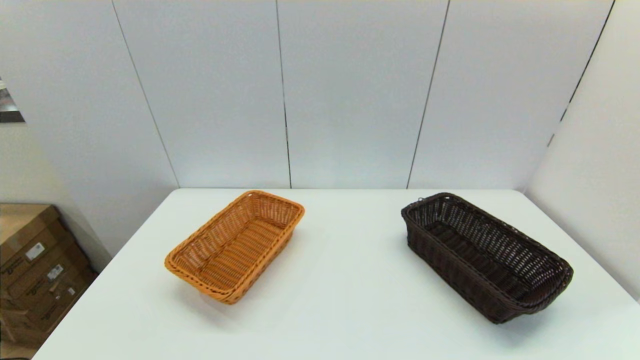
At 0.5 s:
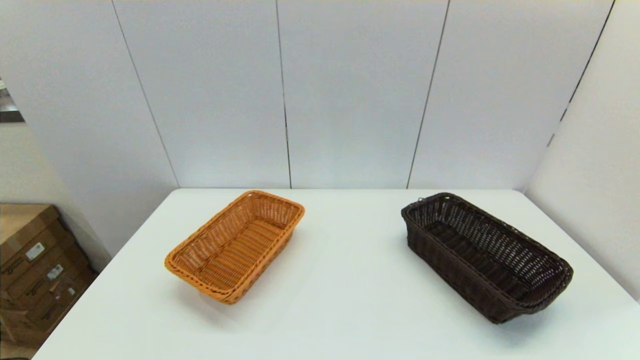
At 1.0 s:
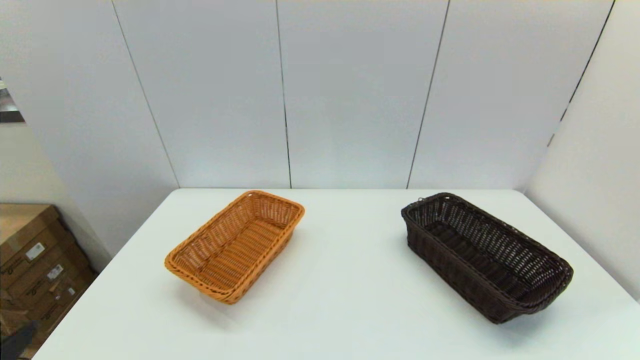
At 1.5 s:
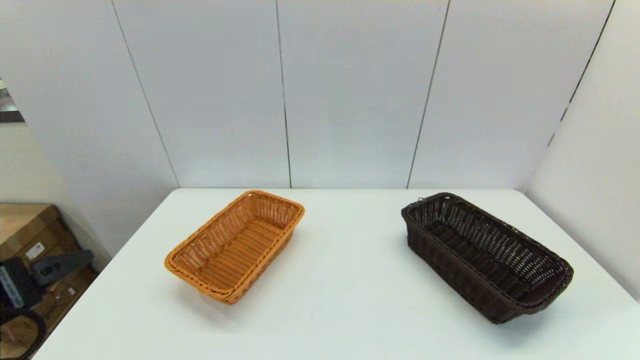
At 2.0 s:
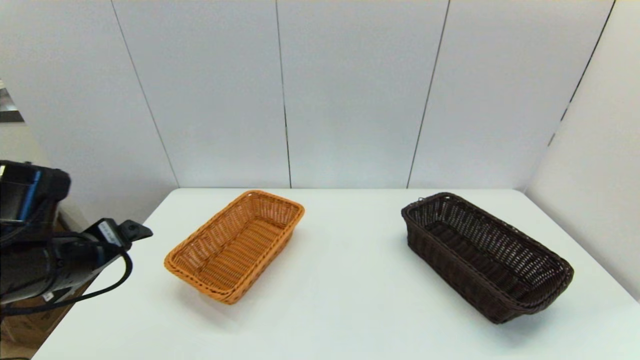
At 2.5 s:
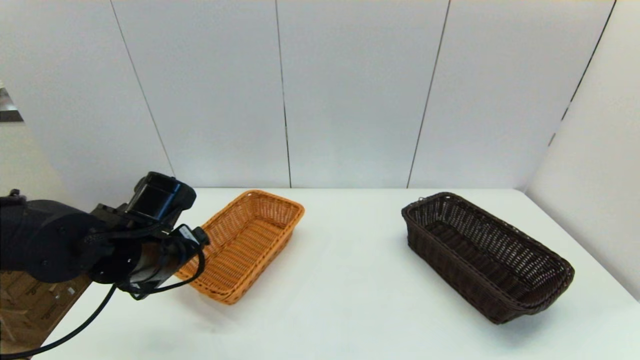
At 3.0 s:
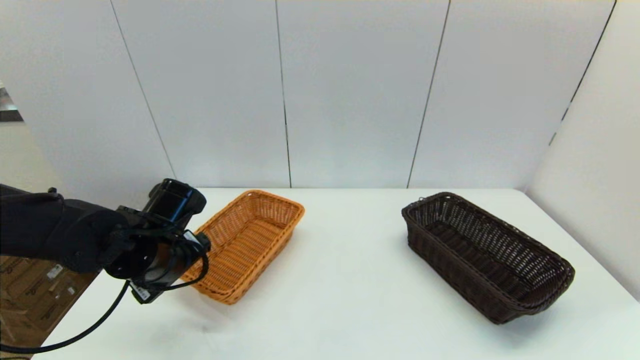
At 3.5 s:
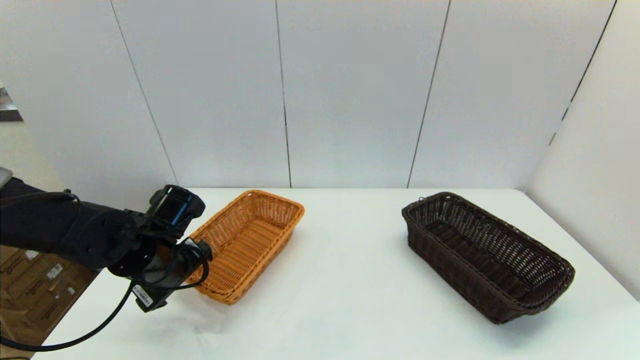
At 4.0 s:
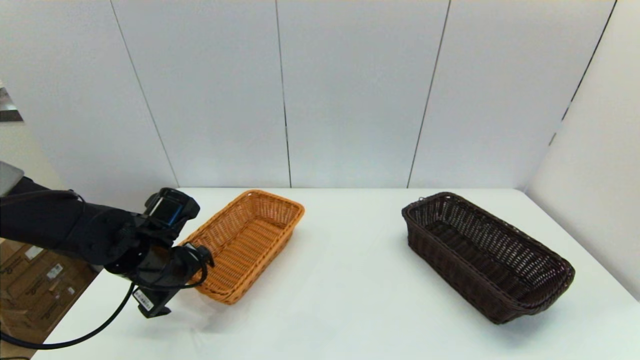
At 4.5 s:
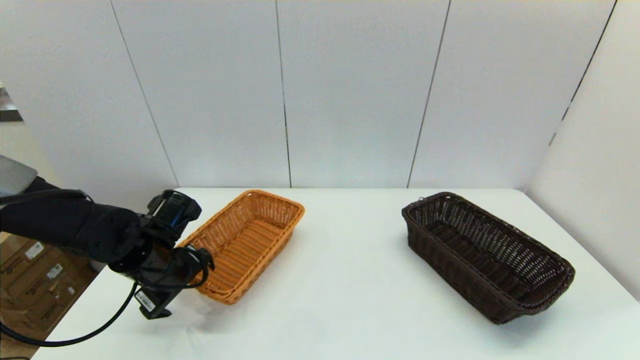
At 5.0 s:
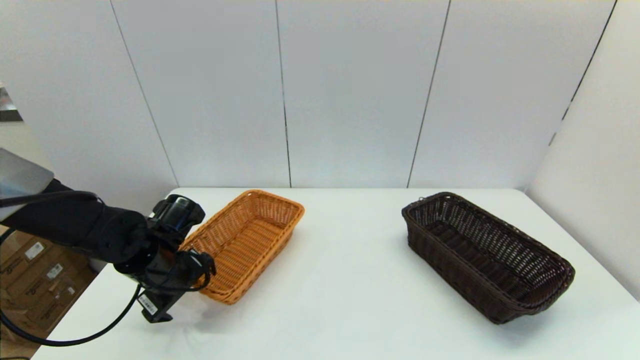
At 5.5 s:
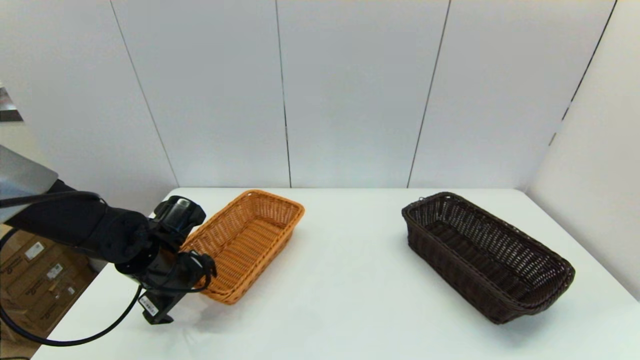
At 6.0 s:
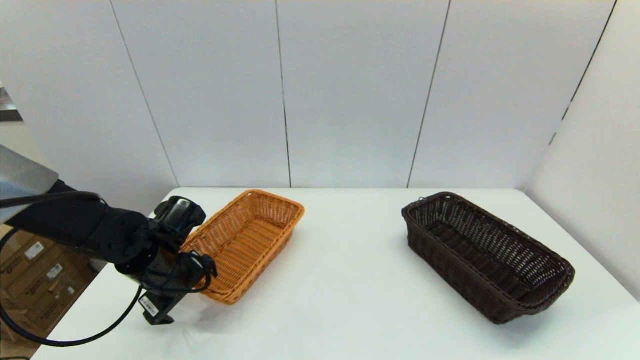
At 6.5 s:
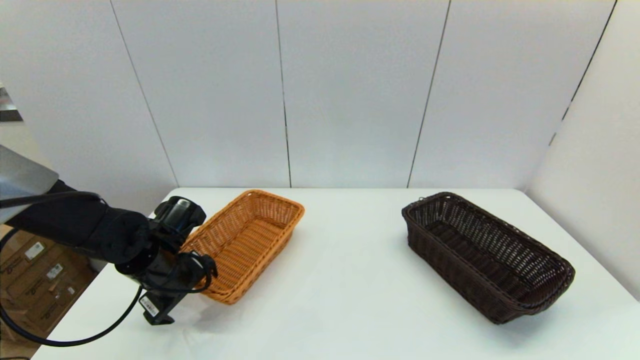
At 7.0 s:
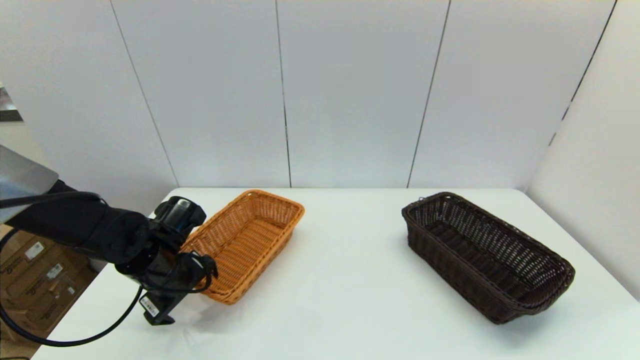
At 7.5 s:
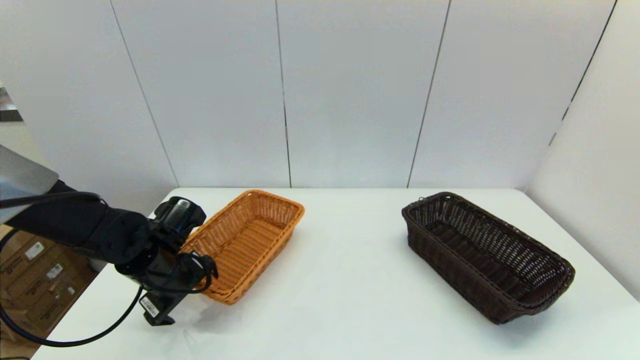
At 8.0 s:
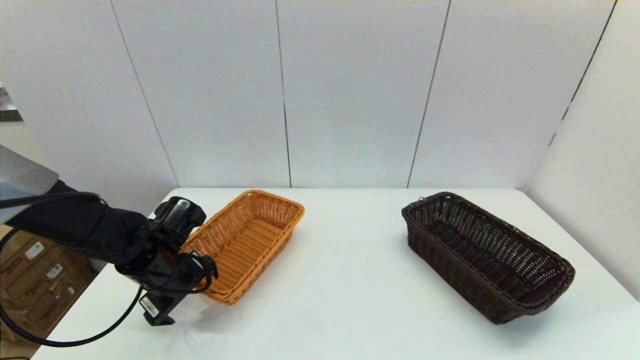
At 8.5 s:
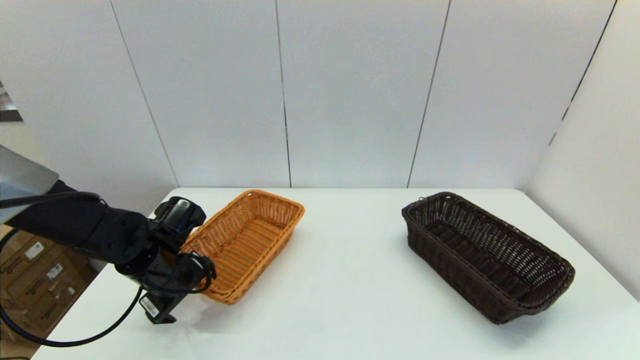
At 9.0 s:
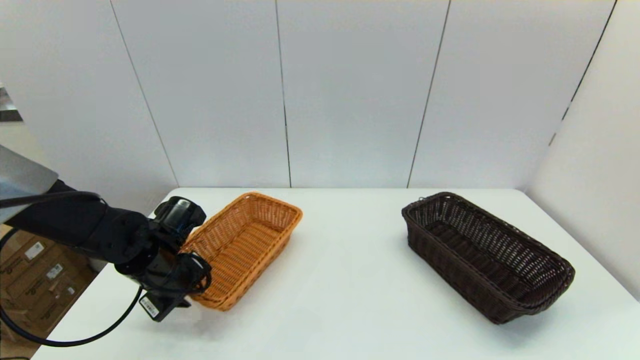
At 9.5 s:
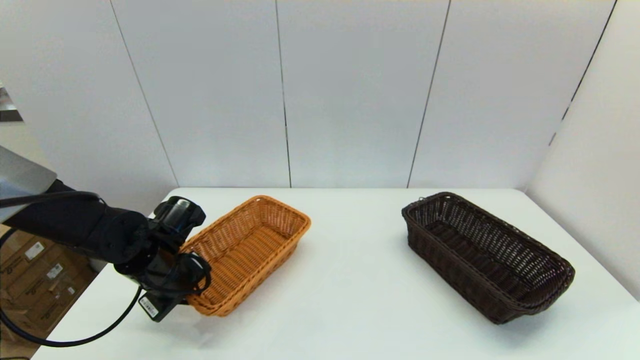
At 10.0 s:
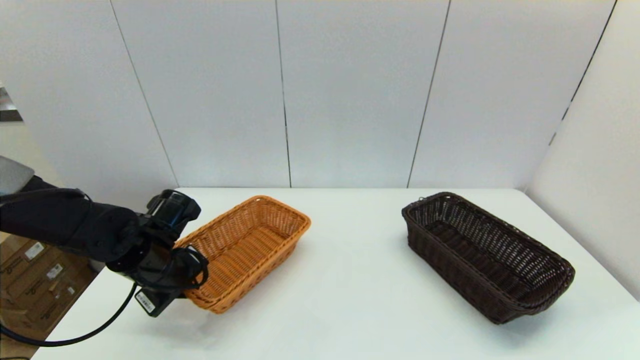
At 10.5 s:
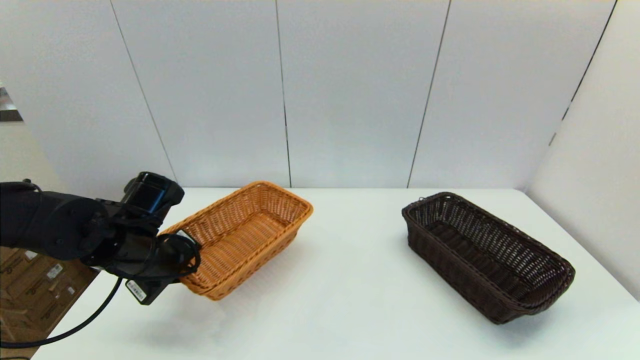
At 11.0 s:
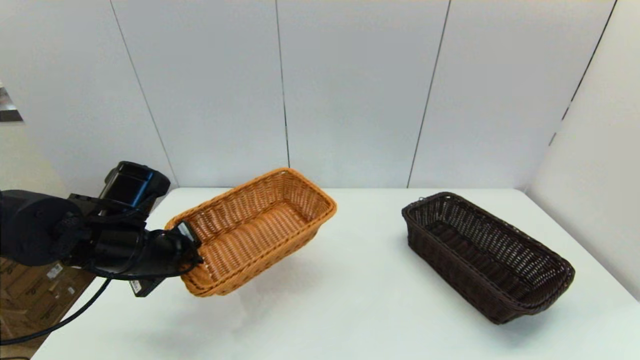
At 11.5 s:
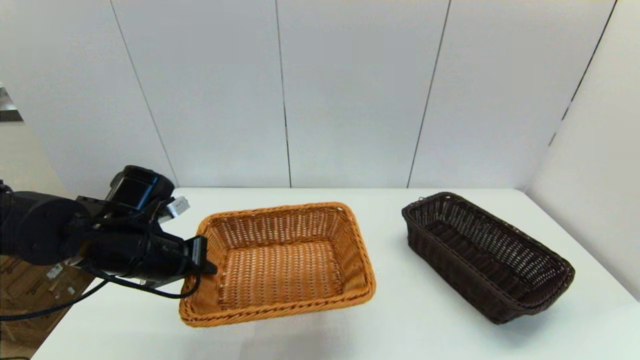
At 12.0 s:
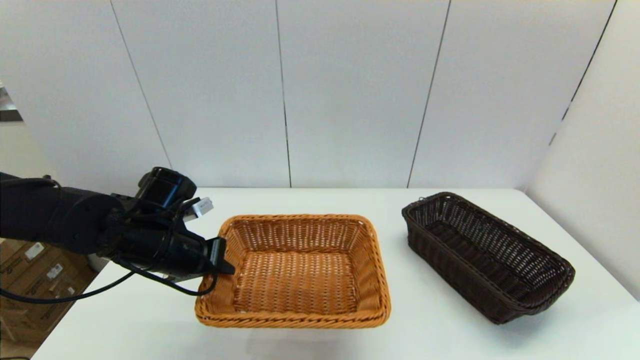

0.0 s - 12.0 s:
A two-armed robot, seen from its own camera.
Task of the whole recording: stack a basket on top of another basket.
Step, 1.0 s - 9.0 s: Grasp the light basket with the left gripper.
0.0 s - 2.0 s: The left gripper shifts some 25 cm forward and upward.
2.0 s - 4.0 s: The left gripper moves downward and forward, some 10 cm.
4.0 s - 6.0 s: The grippers move only a little.
6.0 s - 8.0 s: The two grippers keep their place.
8.0 s - 10.0 s: The left gripper closes its fingers.

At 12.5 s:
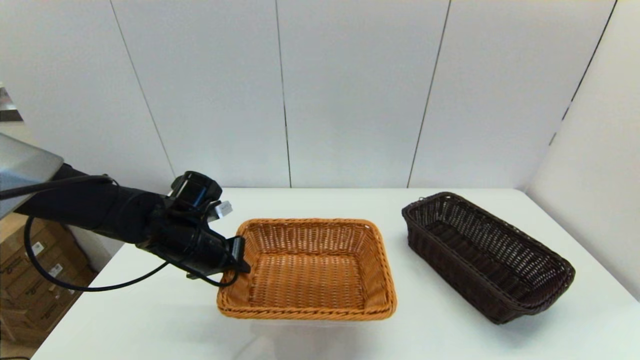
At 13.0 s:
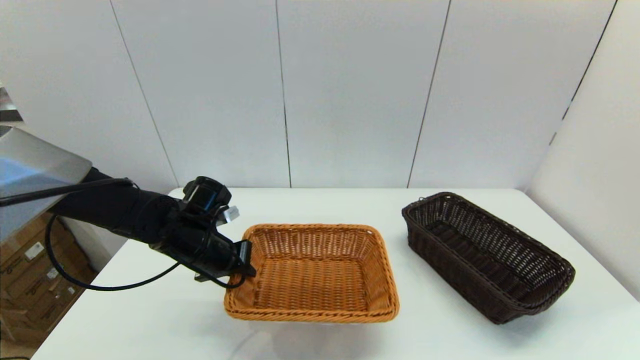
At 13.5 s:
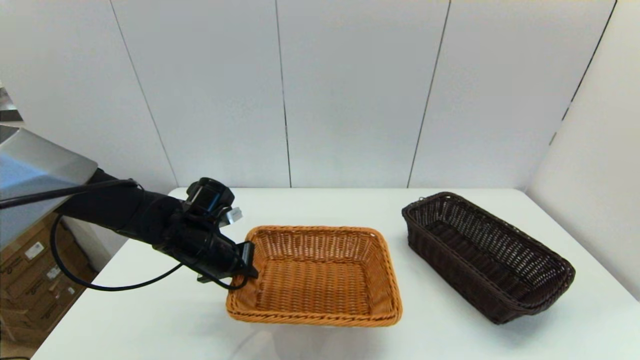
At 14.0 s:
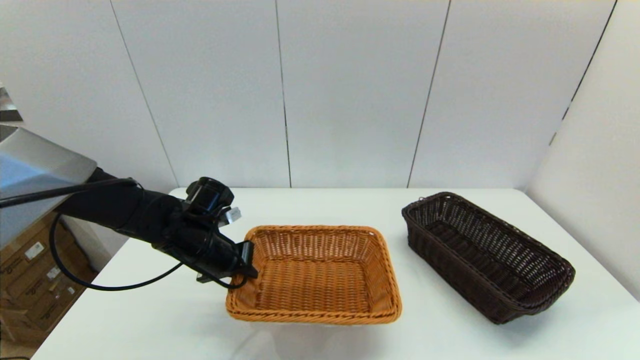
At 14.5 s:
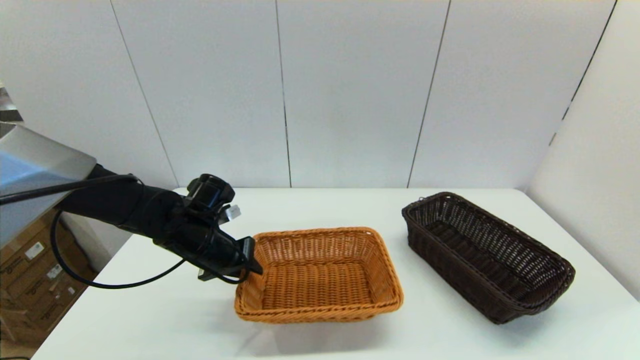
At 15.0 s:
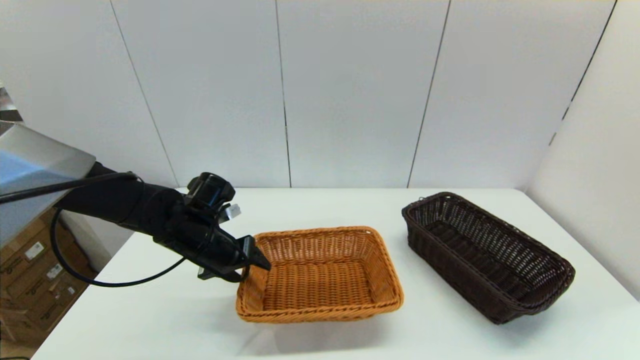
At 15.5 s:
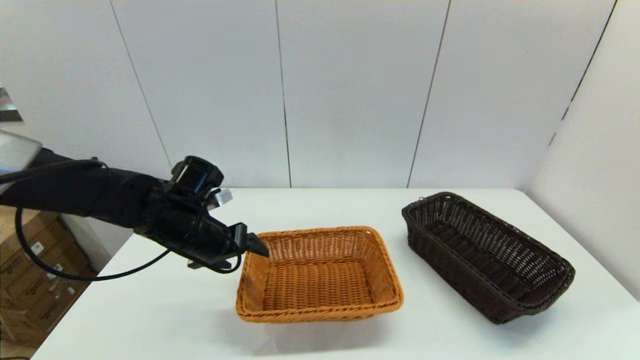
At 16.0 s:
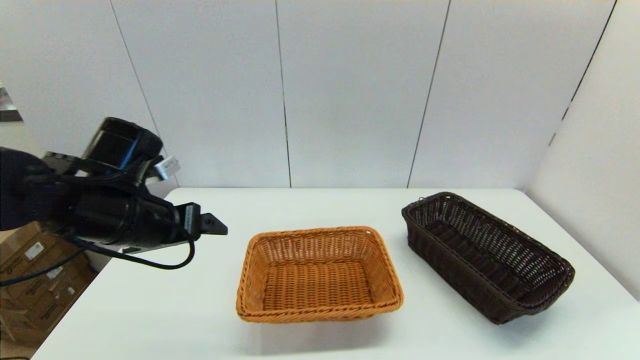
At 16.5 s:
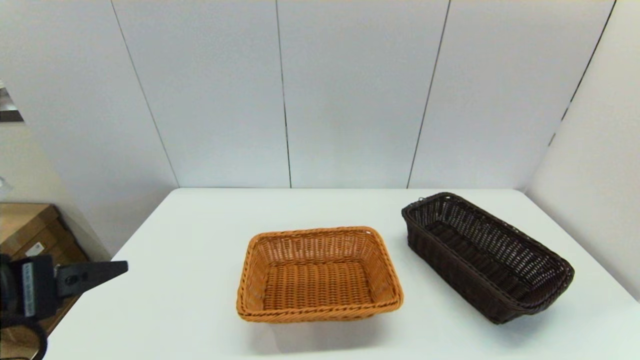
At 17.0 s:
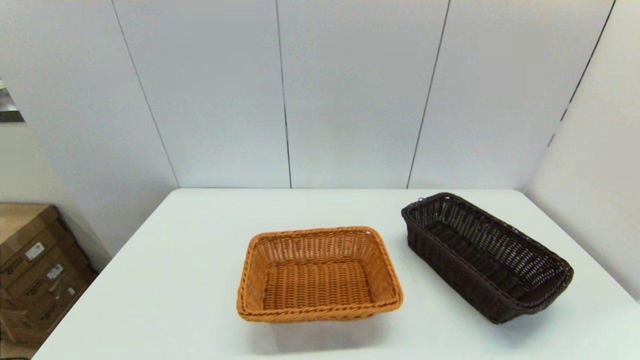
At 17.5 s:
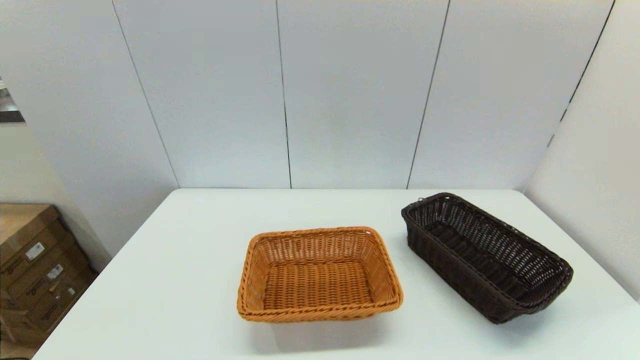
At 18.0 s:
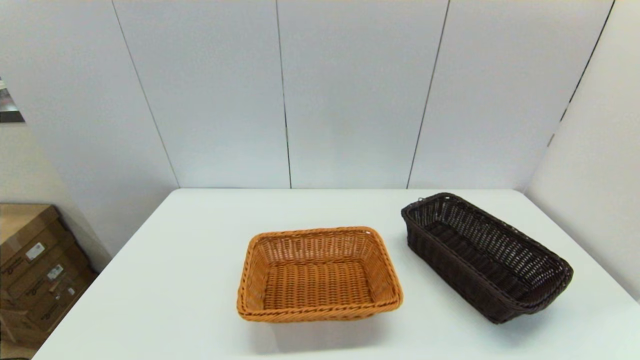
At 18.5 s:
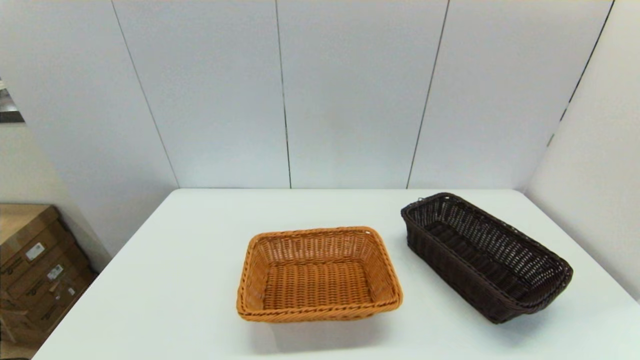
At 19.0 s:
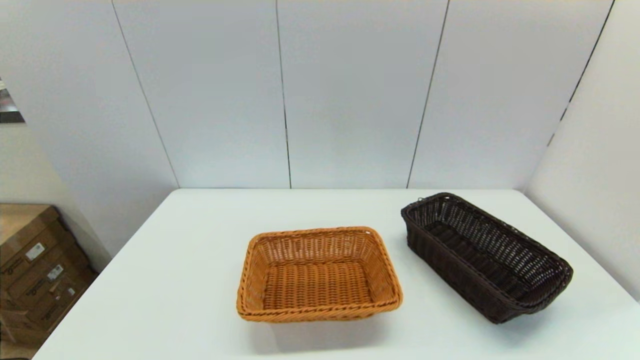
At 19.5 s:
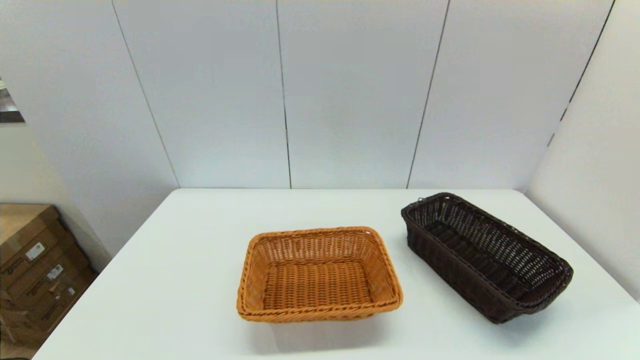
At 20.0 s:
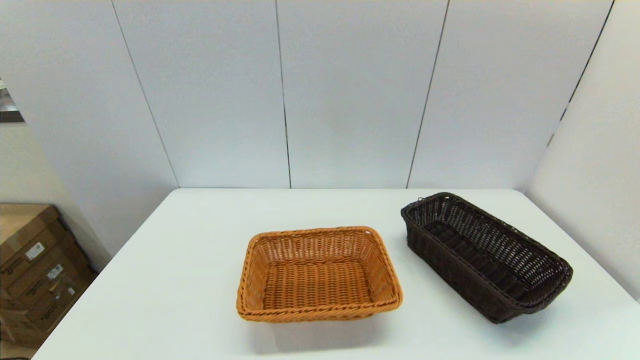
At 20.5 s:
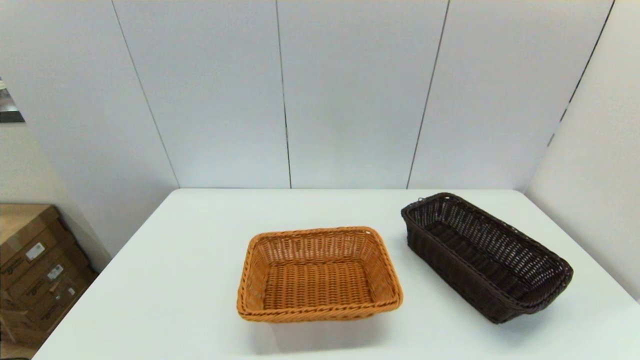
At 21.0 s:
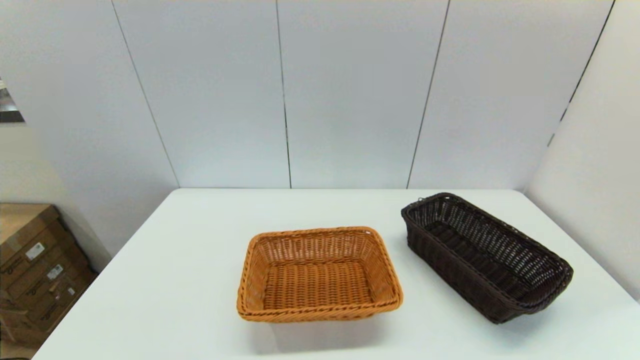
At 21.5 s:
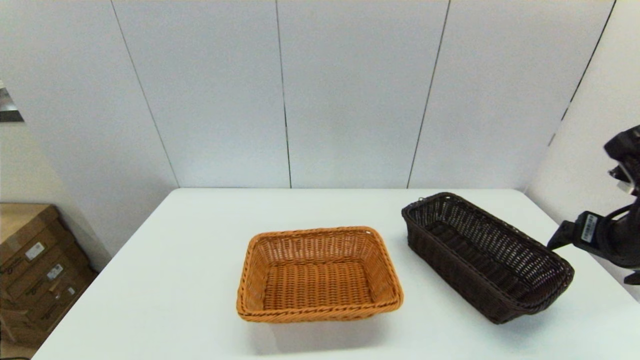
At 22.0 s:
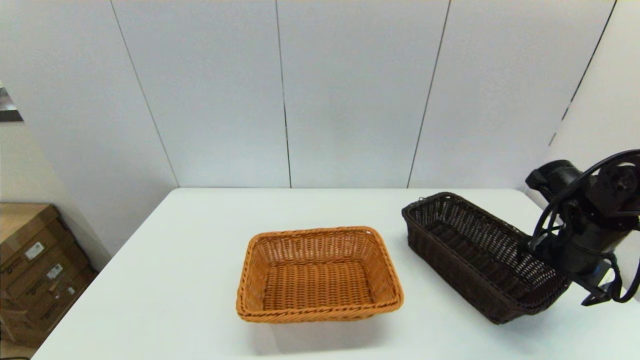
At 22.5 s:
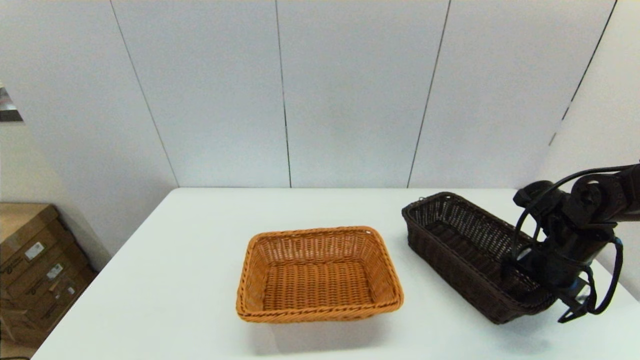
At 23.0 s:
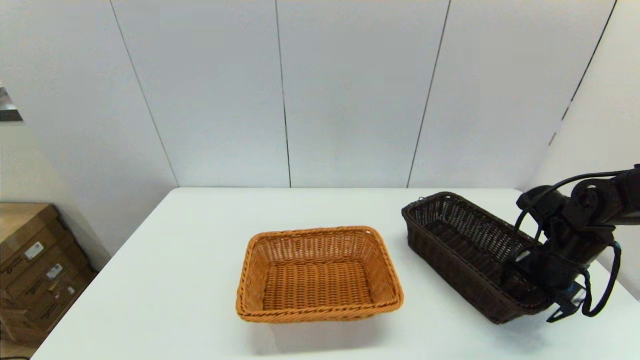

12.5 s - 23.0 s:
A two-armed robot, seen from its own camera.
Task of the whole recording: stack a basket on top of another basket.
Step, 12.5 s - 15.0 s: Place the light basket on the middle of the table with the left gripper.
12.5 s - 14.5 s: The grippers make only small movements.
14.5 s - 16.5 s: The left gripper heads backward and upward, covering some 25 cm, and opens.
16.5 s - 19.0 s: The left gripper heads backward and downward, covering some 20 cm.
21.0 s - 23.0 s: The right gripper shifts roughly 30 cm forward and downward.
